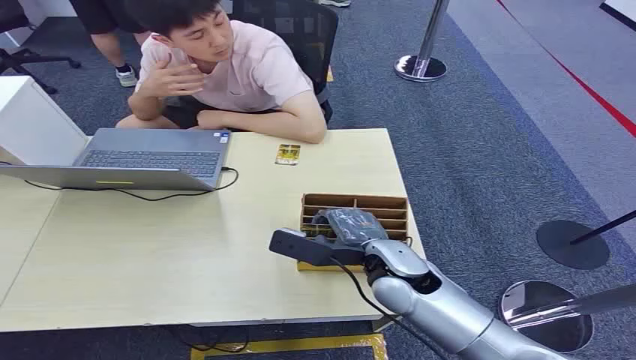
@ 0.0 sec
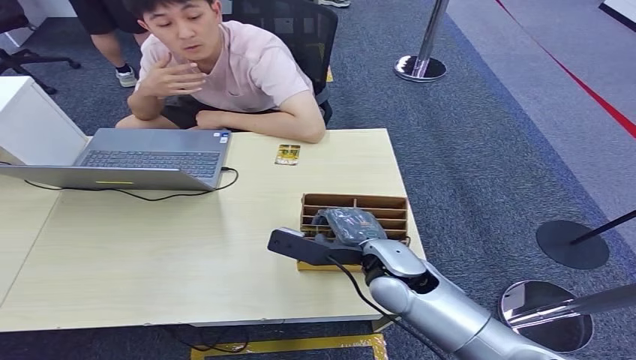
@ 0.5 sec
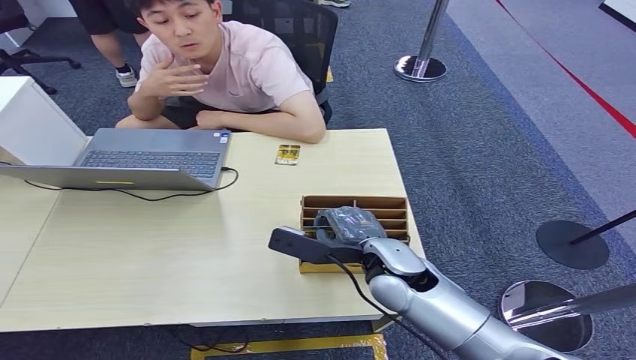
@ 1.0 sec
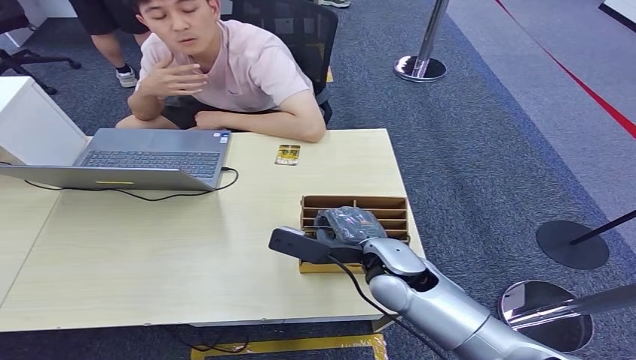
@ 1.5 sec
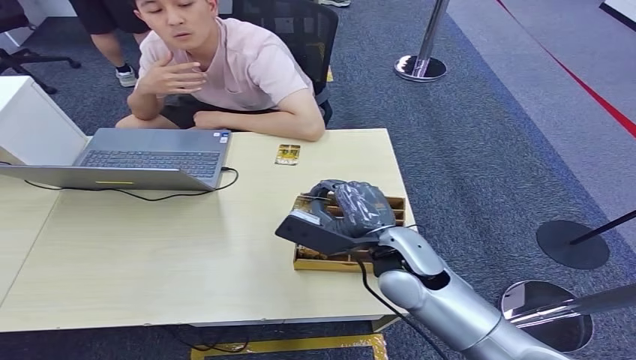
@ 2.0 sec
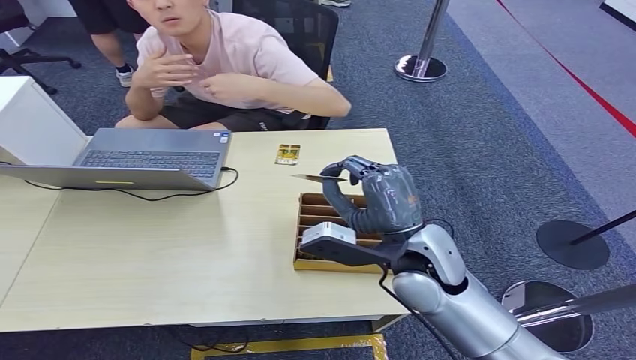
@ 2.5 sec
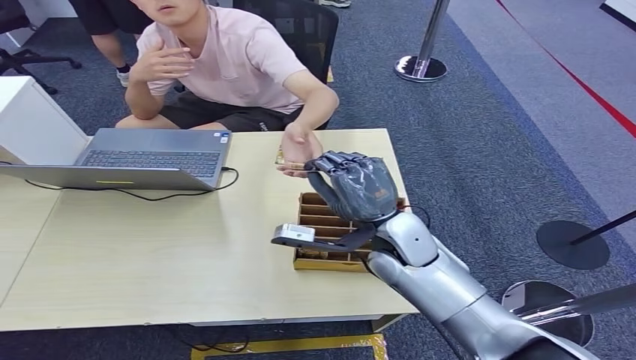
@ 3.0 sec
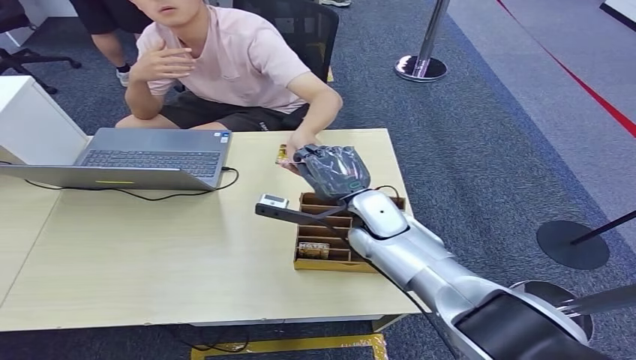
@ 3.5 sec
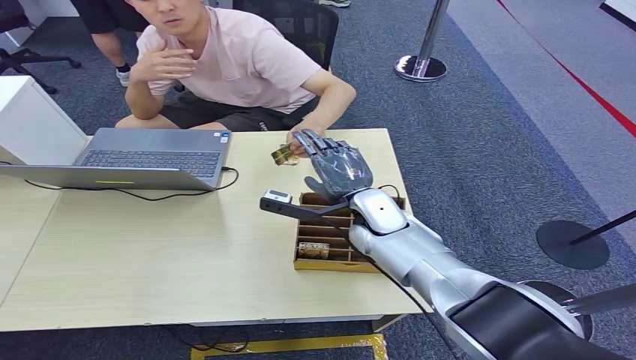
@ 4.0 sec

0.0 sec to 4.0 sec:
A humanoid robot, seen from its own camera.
Step, 0.0 sec to 2.5 sec: Pick up the room card from the card holder.
Step, 3.0 sec to 4.0 sec: Hand the room card to the target.
2.0 sec to 4.0 sec: The right hand shifts roughly 10 cm forward.

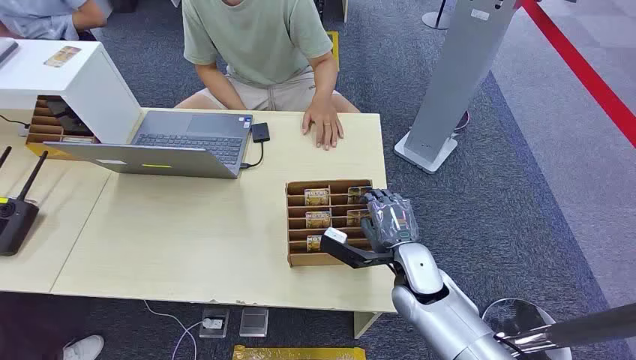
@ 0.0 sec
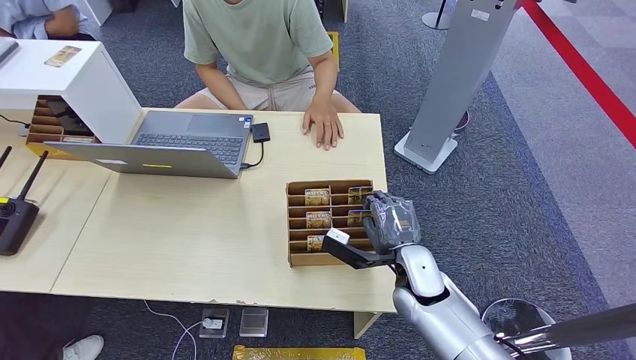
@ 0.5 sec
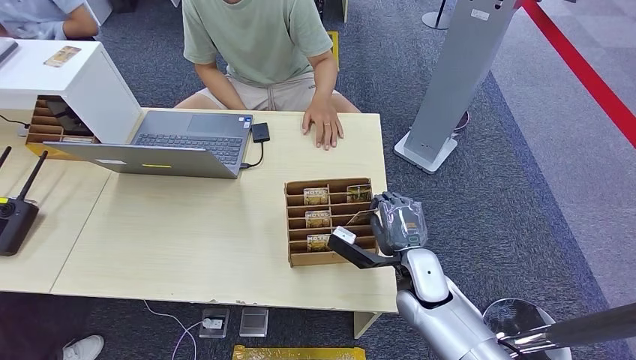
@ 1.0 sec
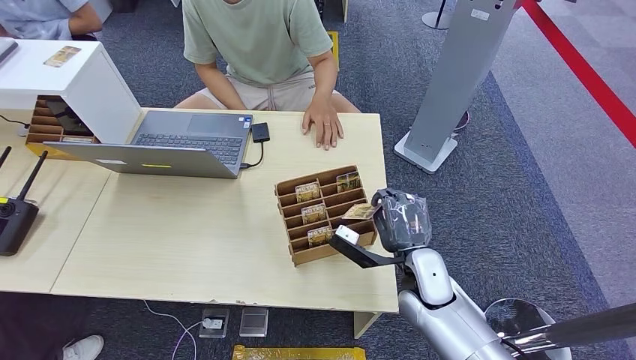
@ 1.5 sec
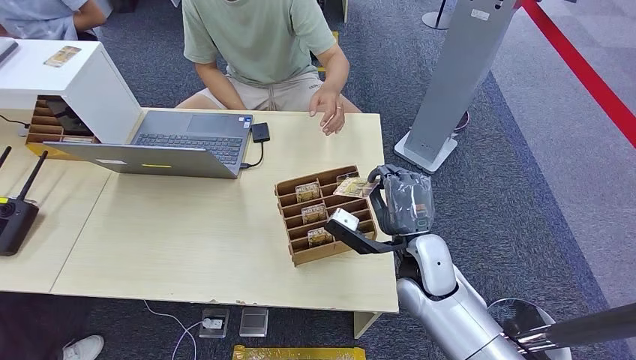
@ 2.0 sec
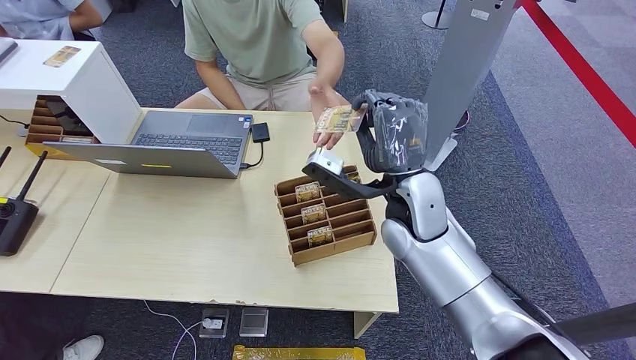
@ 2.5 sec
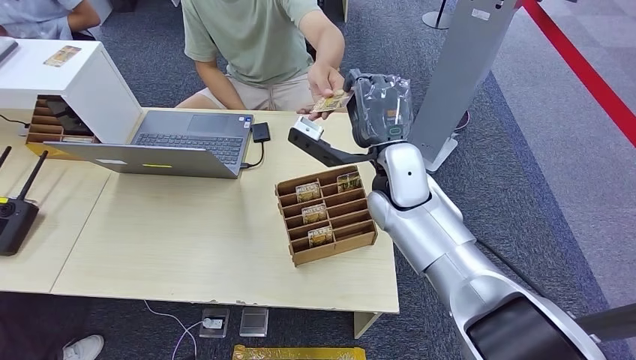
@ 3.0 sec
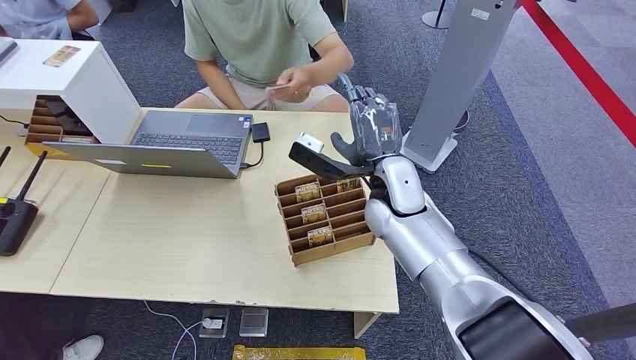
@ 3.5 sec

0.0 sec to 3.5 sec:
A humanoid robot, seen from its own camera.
Step, 0.0 sec to 1.5 sec: Pick up the room card from the card holder.
Step, 3.0 sec to 3.5 sec: Hand the room card to the target.
2.0 sec to 3.5 sec: The right hand travels upward, forward and to the left by roughly 15 cm.
